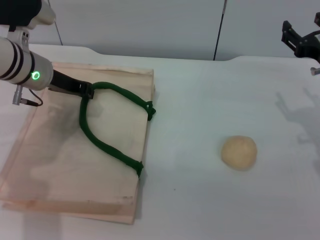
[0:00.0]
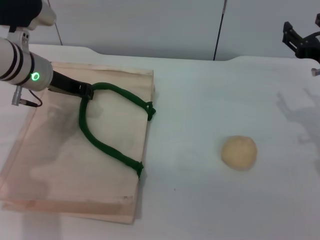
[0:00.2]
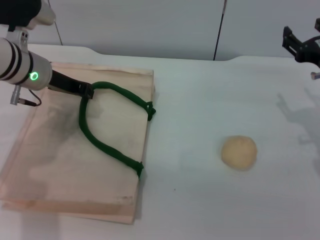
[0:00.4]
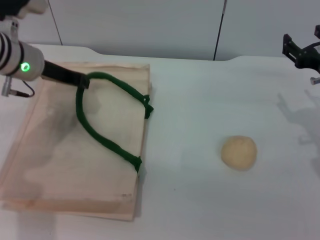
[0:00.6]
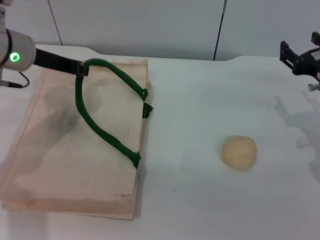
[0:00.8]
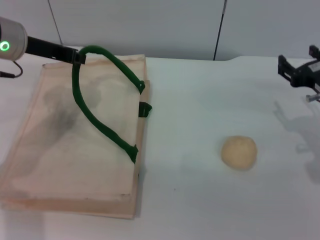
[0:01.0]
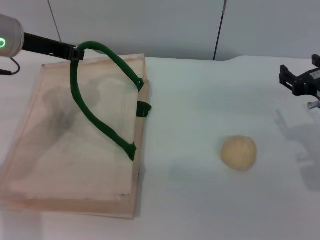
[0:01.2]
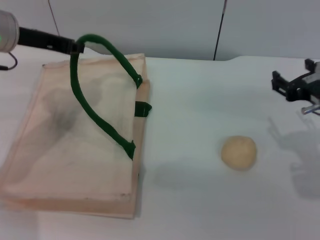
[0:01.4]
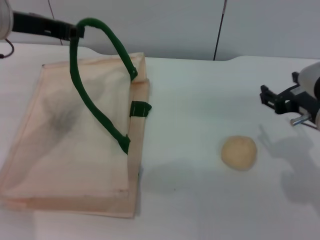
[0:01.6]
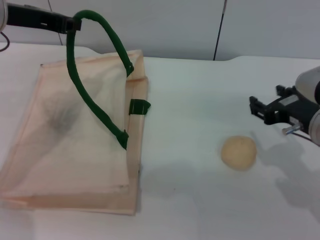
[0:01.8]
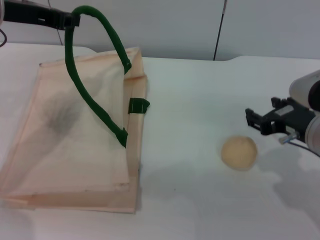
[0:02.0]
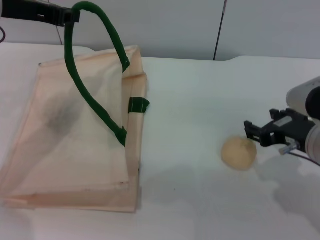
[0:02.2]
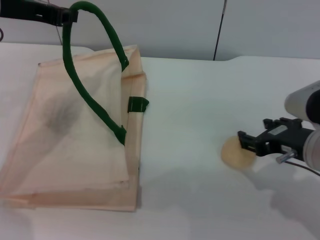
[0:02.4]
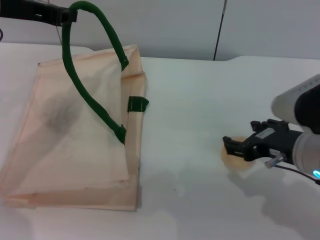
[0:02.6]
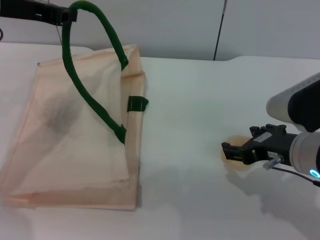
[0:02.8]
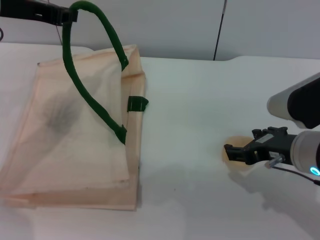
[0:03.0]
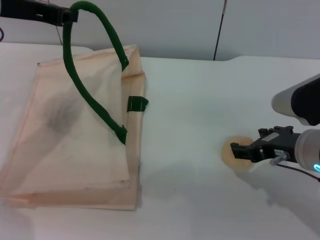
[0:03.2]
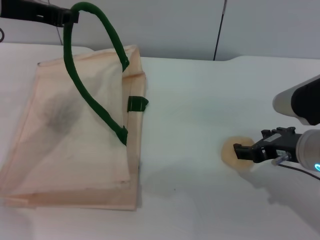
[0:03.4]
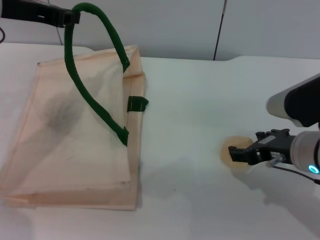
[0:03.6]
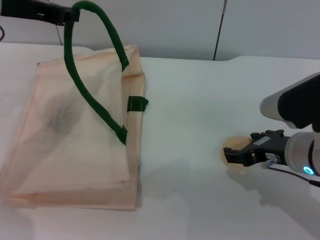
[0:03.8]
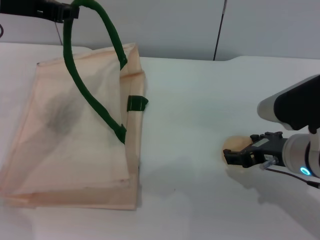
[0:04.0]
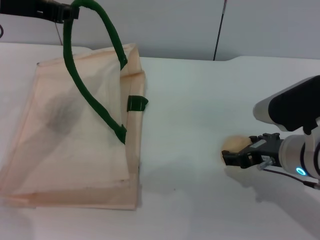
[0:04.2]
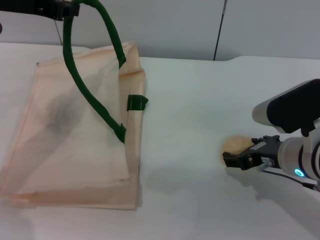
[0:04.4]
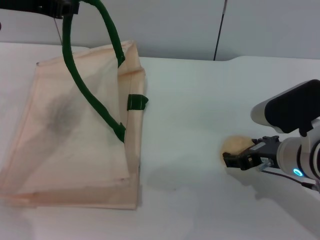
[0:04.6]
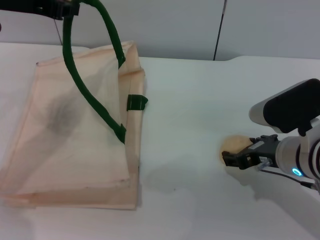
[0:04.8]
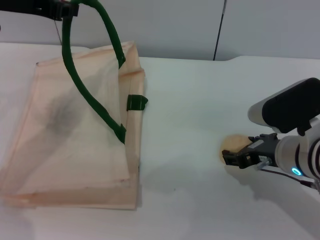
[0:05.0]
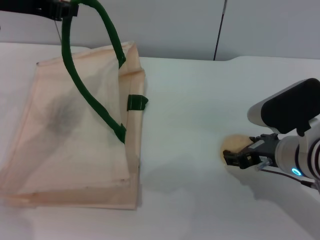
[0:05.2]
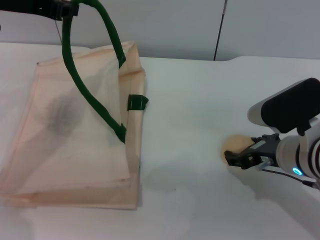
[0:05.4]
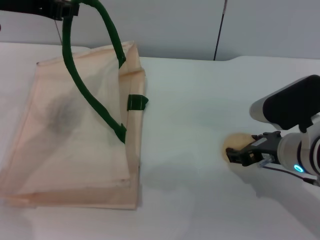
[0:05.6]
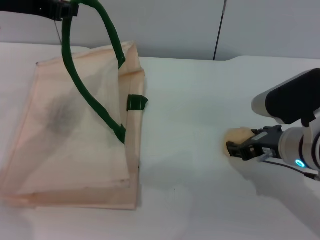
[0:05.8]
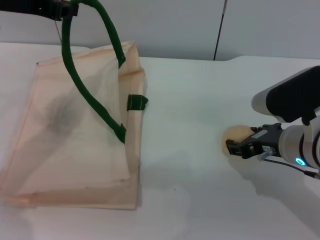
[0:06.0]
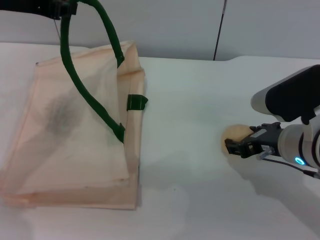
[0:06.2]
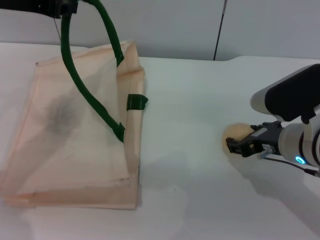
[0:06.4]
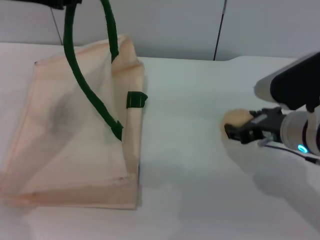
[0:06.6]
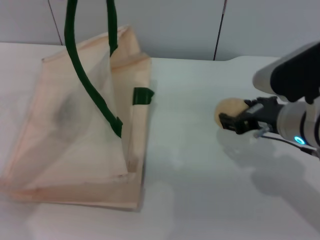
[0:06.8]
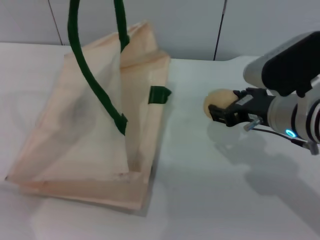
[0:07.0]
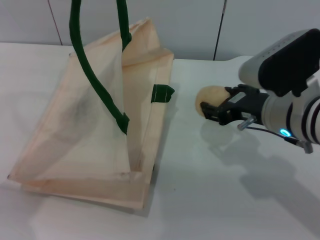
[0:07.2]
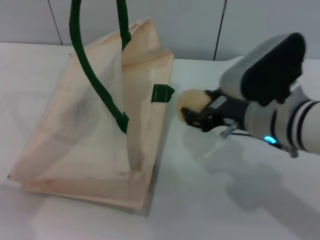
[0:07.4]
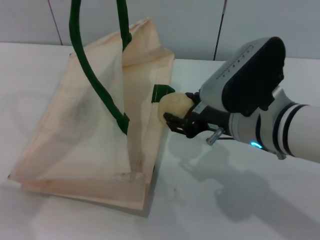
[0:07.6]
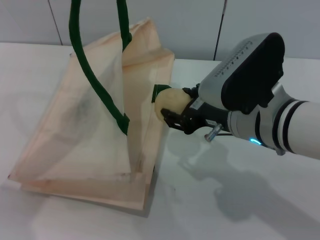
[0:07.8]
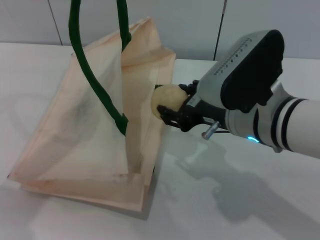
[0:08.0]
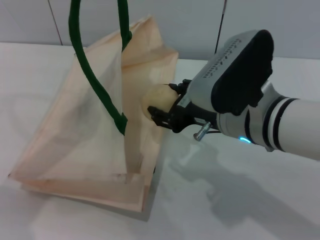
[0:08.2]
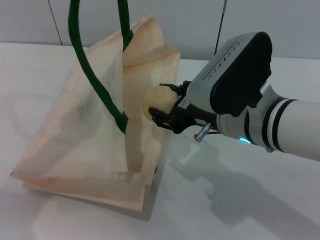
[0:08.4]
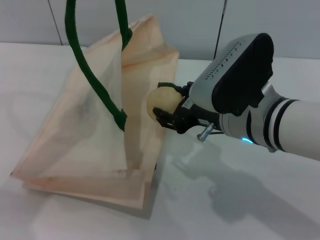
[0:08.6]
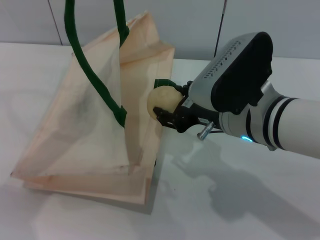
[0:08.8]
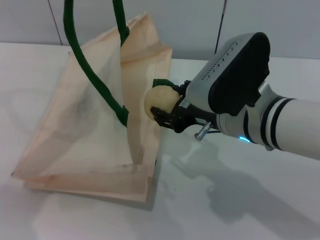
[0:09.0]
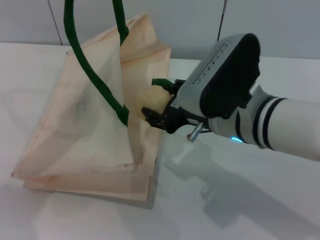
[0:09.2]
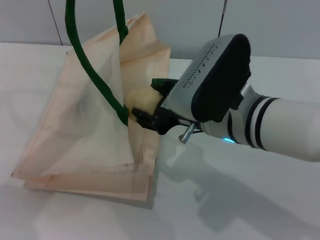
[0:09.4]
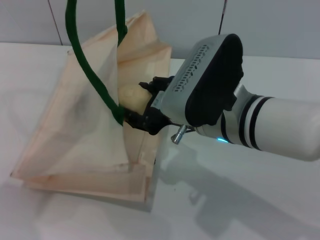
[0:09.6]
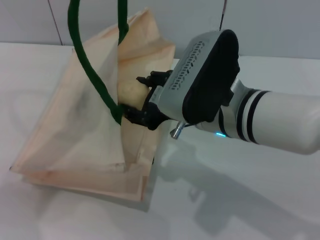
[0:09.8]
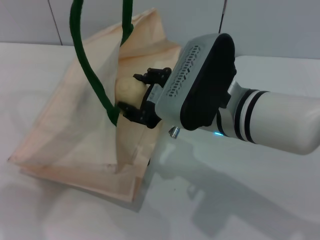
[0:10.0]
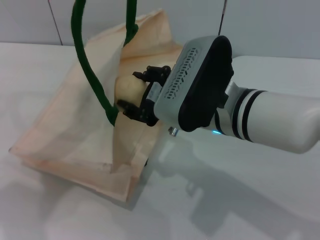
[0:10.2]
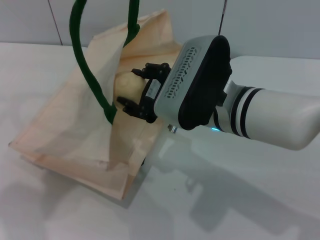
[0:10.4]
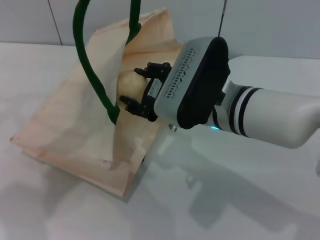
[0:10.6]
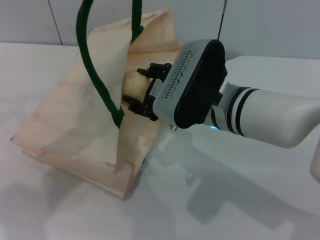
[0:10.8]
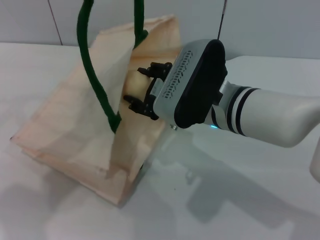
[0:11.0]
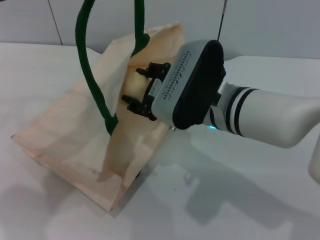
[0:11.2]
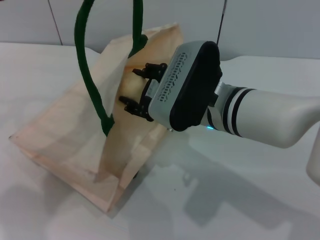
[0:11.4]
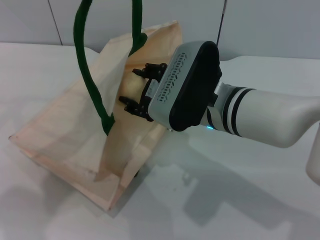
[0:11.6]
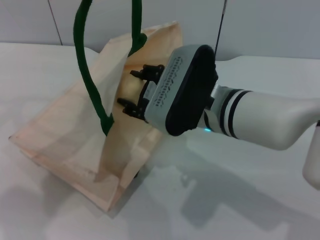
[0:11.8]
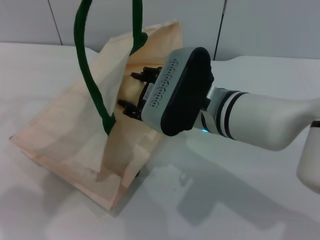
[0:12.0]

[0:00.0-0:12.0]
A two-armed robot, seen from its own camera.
Task of the whole recording: pick up the egg yolk pastry from the table and place it in the white handbag.
Step, 0:01.6 to 0:06.6: Pick up the egg yolk pastry with the right gripper.
0:00.0 to 0:01.6: The right gripper is displaced backward by approximately 5 cm. The left gripper is displaced upward by approximately 10 cm.
0:01.6 to 0:03.0: The right gripper closes, then opens again.
0:03.0 to 0:04.4: The grippers make only small movements.
0:04.4 to 0:06.0: The right gripper closes up.
0:06.0 to 0:07.6: The right gripper travels to the left by some 5 cm. The left gripper ends up some 5 cm from where it was.
0:07.6 to 0:09.0: The grippers make only small movements.
0:10.4 to 0:12.0: The grippers stay close to where they were, moving slightly.

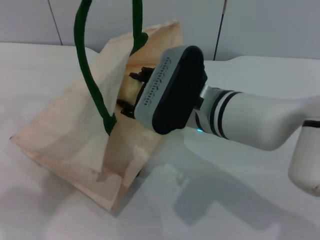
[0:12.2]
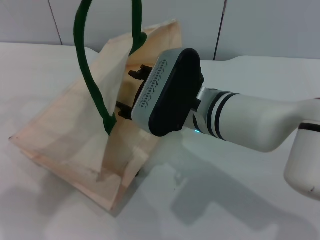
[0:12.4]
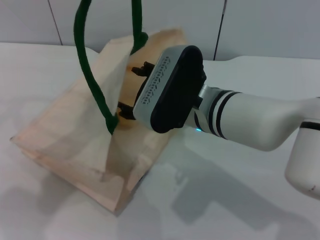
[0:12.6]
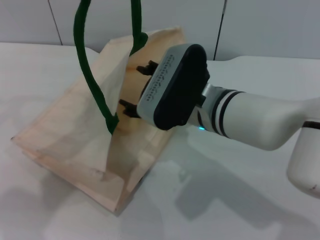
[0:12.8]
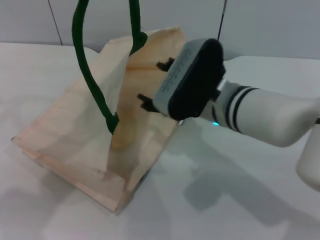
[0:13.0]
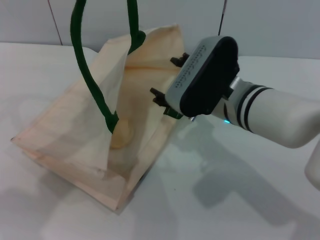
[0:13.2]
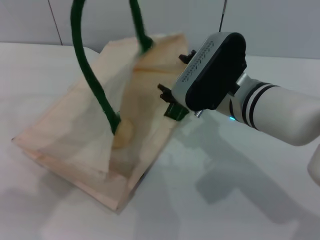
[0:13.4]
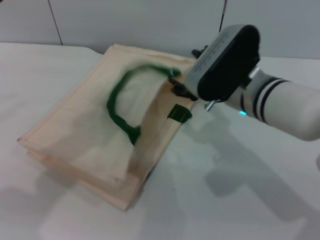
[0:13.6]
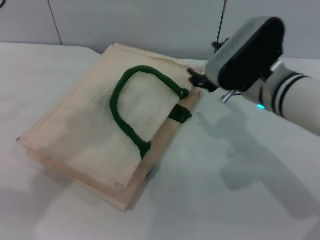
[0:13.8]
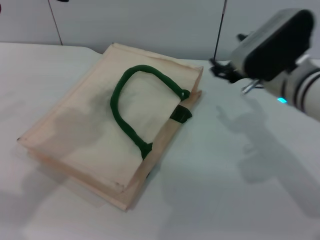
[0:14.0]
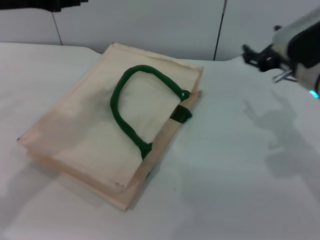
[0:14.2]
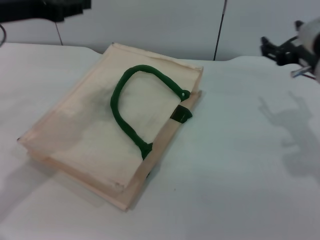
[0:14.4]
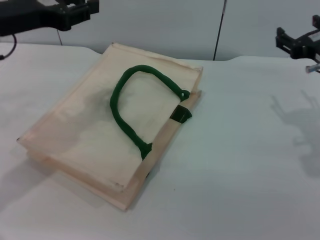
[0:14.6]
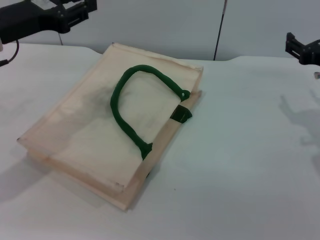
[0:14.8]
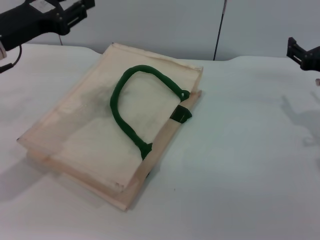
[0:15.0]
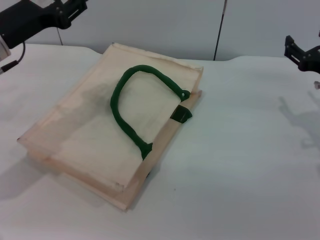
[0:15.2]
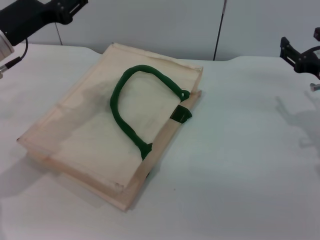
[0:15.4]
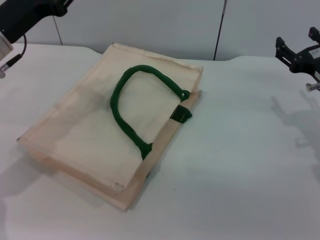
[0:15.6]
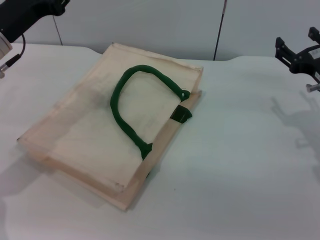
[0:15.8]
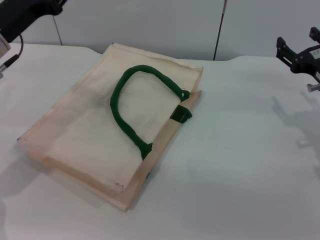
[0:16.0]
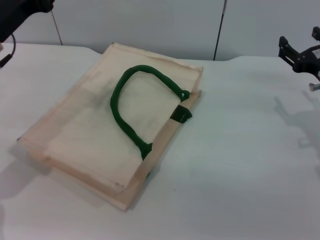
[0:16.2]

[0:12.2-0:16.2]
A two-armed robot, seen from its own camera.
Task of the whole recording: pick up the egg yolk pastry from the table and place it in the white handbag.
Step, 0:13.2 to 0:14.0: Lower the woven bag with the left gripper to close it.
0:12.2 to 0:13.6: The right gripper heads to the right, covering some 5 cm, and opens.
0:13.6 to 0:14.8: The right gripper travels to the right by roughly 15 cm, while the left gripper shifts approximately 15 cm downward, and opens up.
